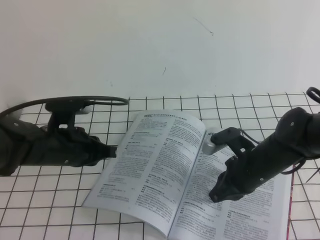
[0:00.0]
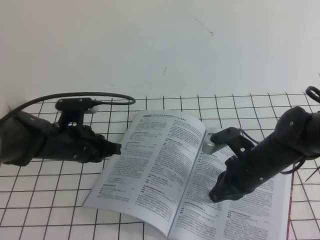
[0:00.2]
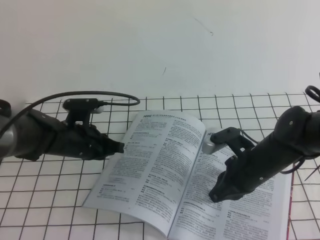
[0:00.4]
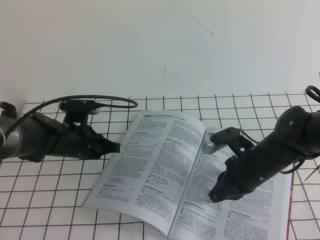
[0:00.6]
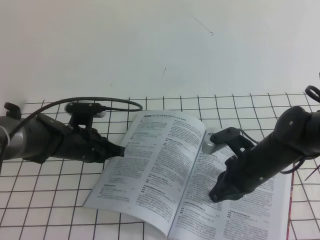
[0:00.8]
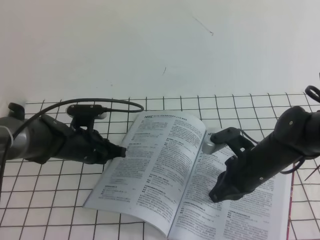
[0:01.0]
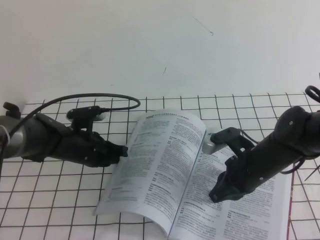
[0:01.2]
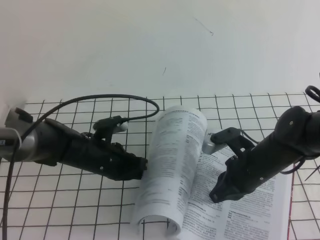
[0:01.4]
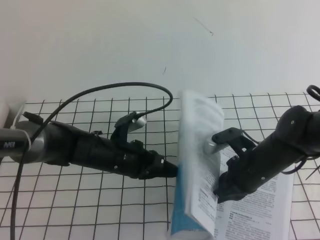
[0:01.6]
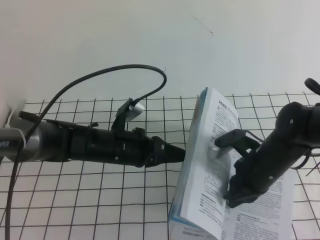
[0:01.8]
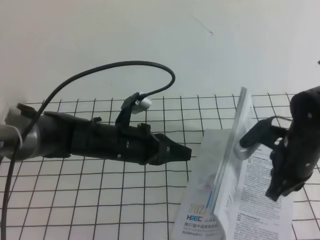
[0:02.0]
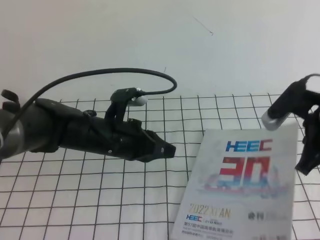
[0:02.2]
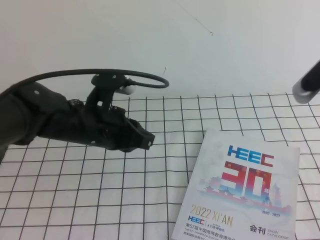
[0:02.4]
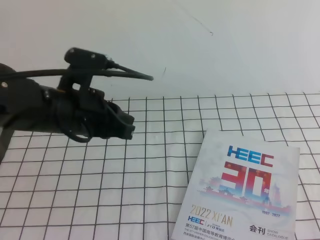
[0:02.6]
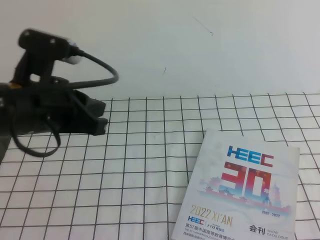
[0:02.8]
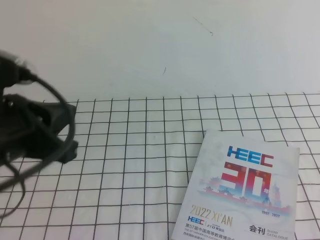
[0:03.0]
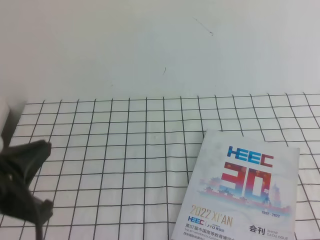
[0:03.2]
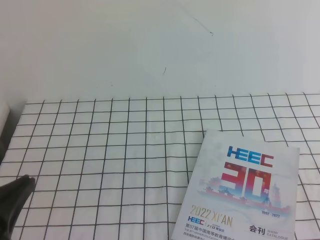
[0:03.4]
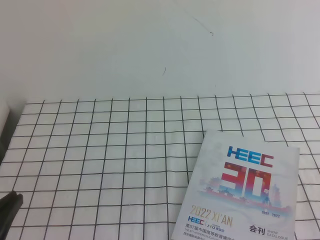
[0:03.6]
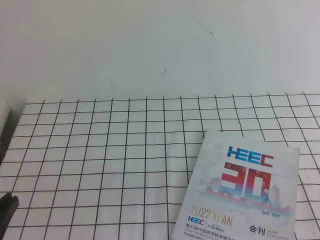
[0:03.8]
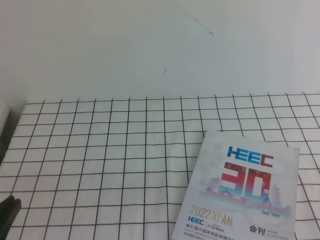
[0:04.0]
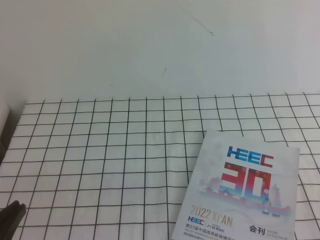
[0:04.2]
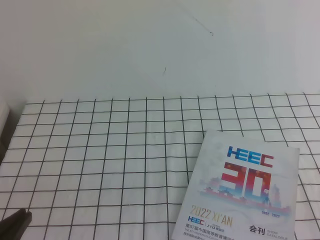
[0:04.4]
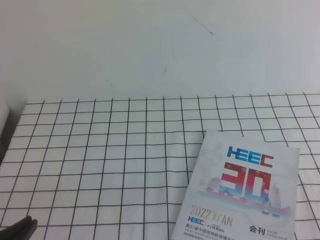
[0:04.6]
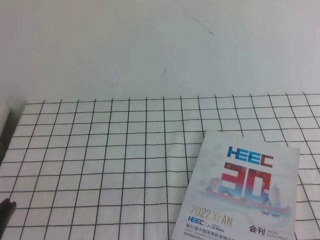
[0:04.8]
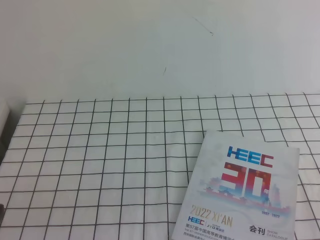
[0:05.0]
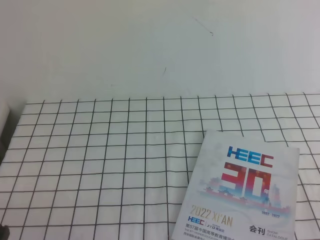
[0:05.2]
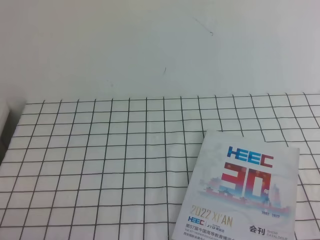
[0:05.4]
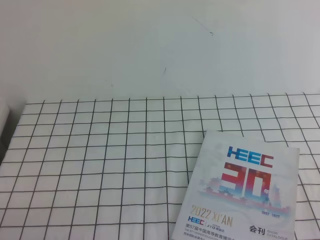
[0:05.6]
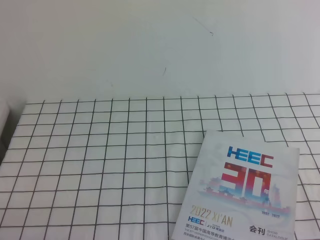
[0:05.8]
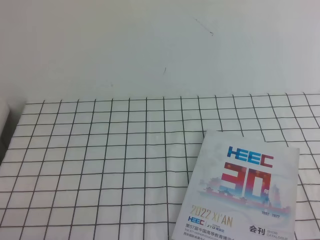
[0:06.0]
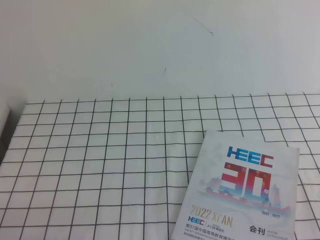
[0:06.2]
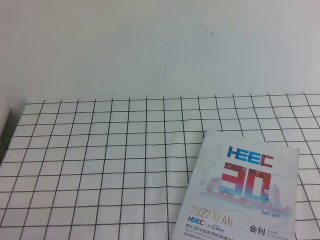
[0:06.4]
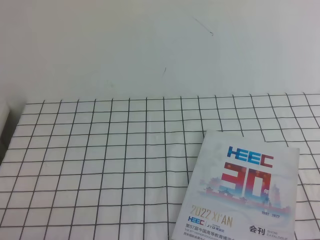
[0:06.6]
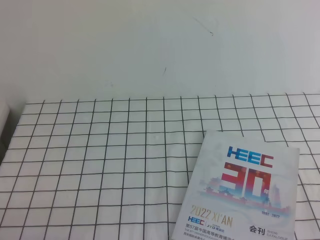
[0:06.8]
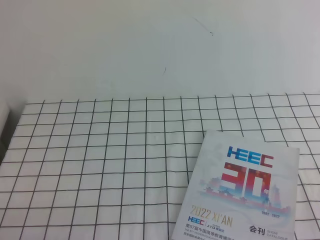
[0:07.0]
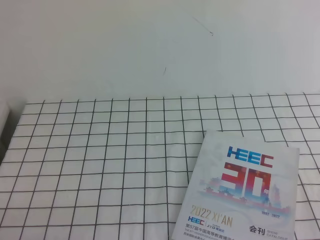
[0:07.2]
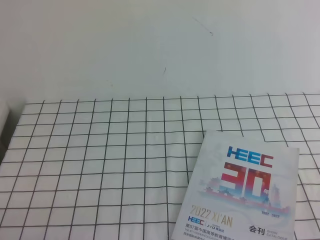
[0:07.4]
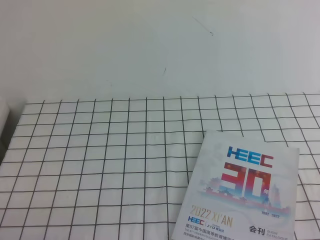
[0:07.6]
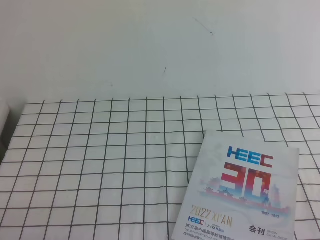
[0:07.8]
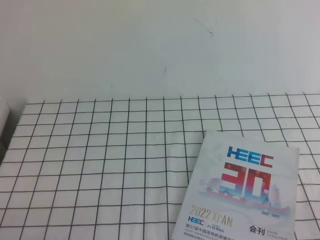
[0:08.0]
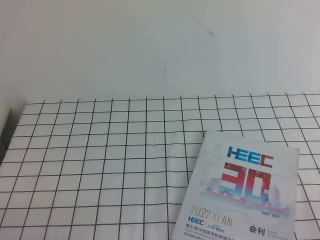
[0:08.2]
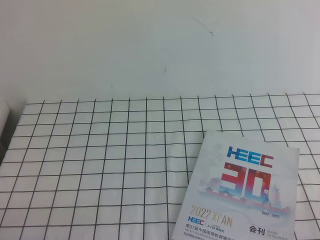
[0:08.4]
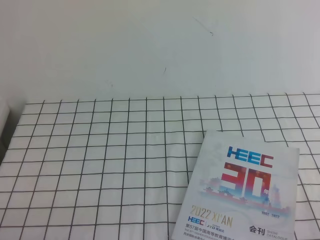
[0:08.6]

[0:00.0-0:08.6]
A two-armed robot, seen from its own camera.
Task of the whole recording: on the white tablecloth, hold the book with one hand and close it with the other.
Step, 0:00.0 to 0:08.6: Close the open book.
0:00.0 to 0:01.4: The left gripper moves downward, roughly 5 cm.
0:01.4 to 0:02.8: The left gripper is displaced upward and backward by approximately 25 cm. Meanwhile the right gripper shifts some 35 cm upward, backward and to the right.
0:02.8 to 0:04.4: The two grippers go some 20 cm backward and downward.
0:04.4 to 0:05.8: The left gripper goes roughly 10 cm downward.

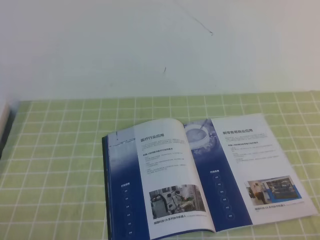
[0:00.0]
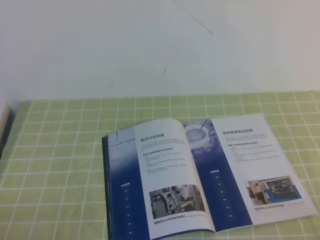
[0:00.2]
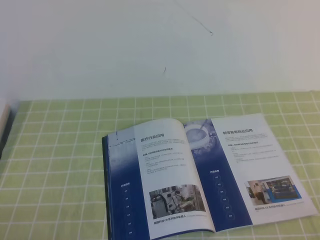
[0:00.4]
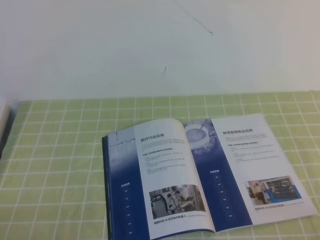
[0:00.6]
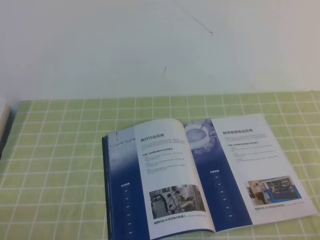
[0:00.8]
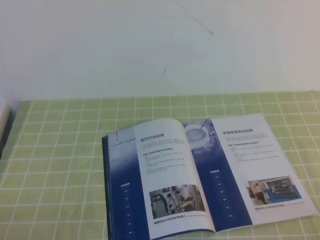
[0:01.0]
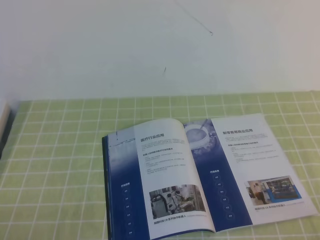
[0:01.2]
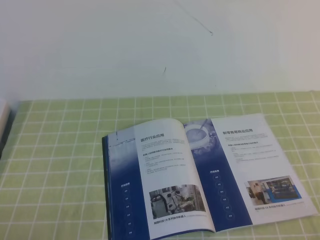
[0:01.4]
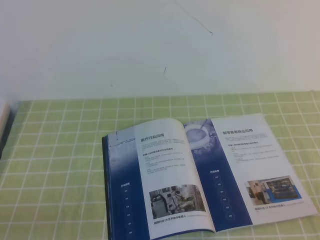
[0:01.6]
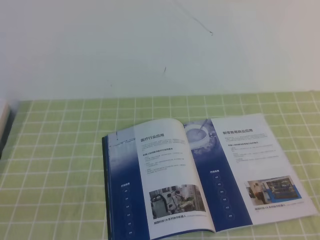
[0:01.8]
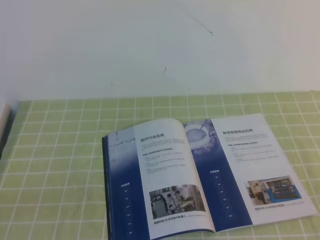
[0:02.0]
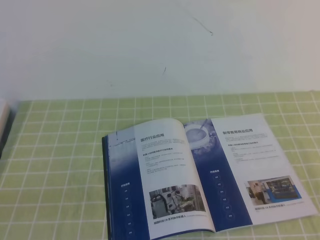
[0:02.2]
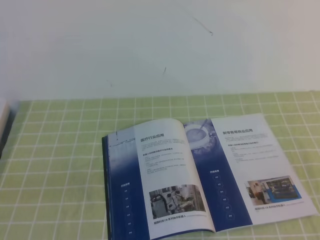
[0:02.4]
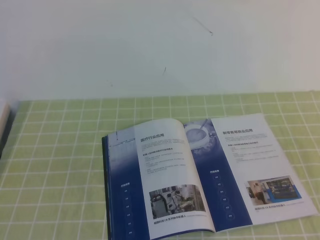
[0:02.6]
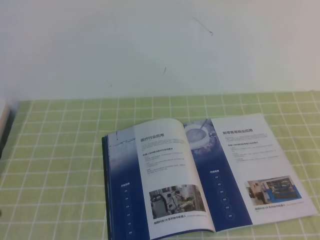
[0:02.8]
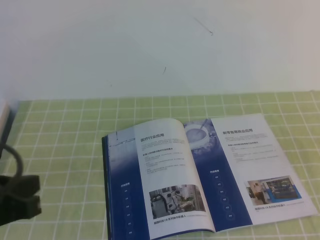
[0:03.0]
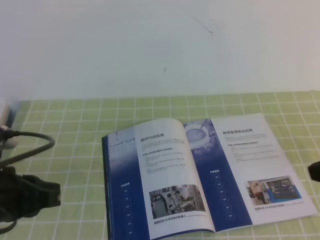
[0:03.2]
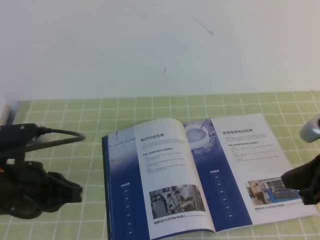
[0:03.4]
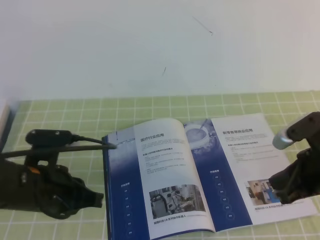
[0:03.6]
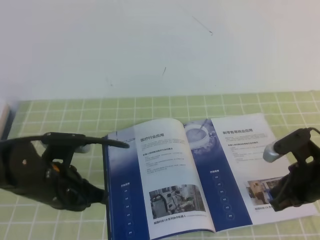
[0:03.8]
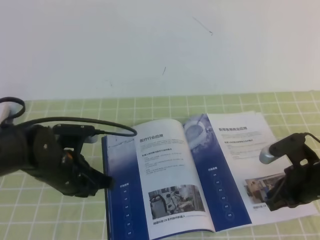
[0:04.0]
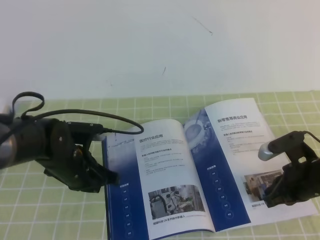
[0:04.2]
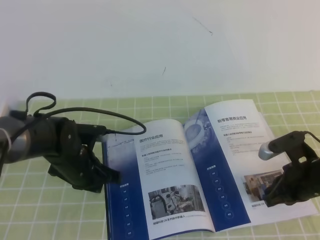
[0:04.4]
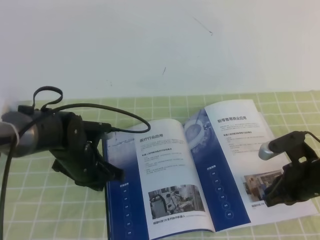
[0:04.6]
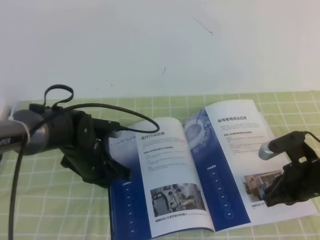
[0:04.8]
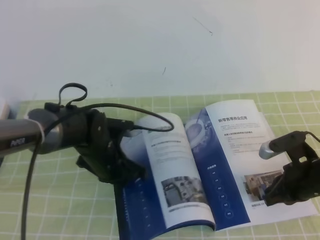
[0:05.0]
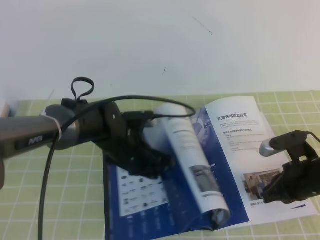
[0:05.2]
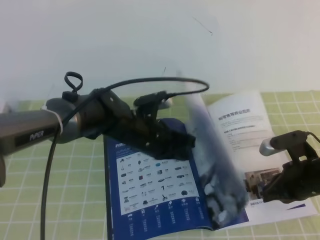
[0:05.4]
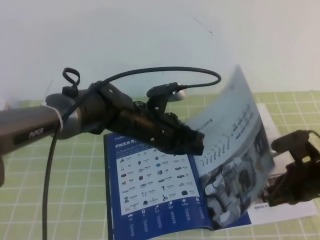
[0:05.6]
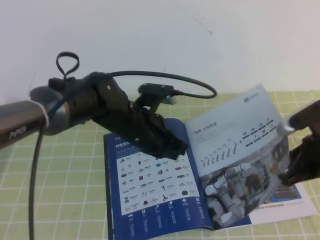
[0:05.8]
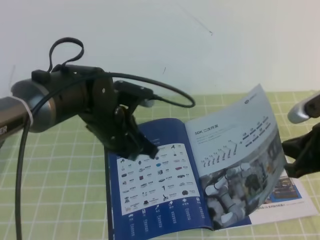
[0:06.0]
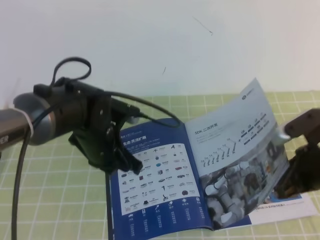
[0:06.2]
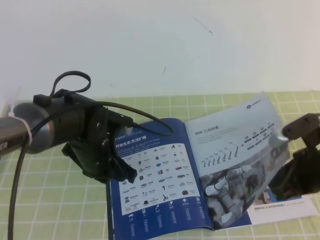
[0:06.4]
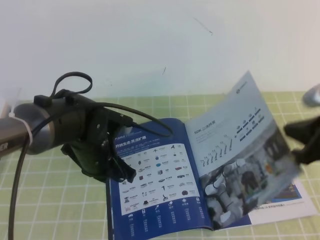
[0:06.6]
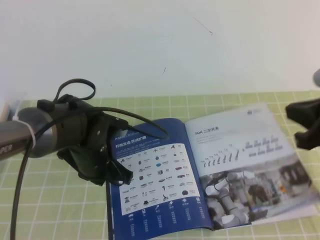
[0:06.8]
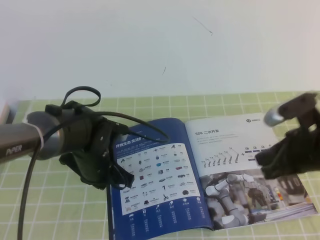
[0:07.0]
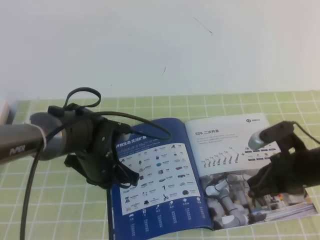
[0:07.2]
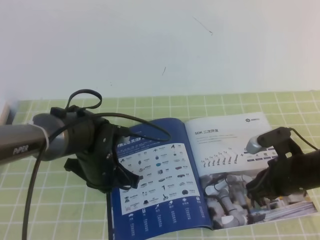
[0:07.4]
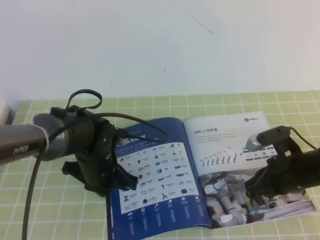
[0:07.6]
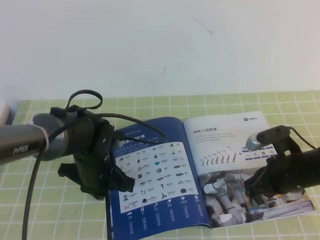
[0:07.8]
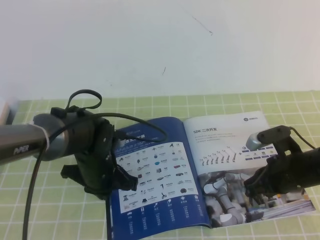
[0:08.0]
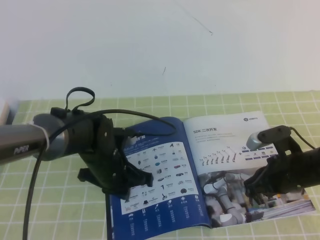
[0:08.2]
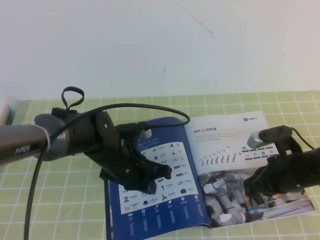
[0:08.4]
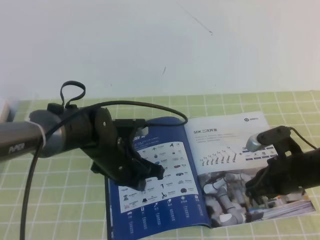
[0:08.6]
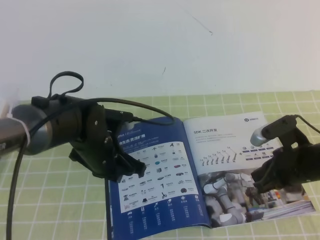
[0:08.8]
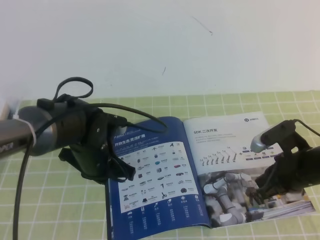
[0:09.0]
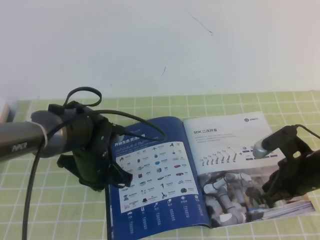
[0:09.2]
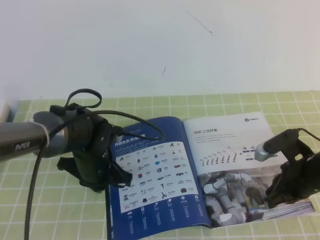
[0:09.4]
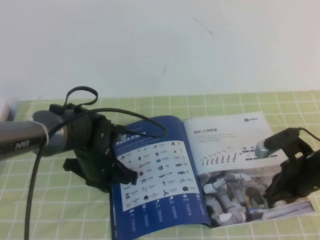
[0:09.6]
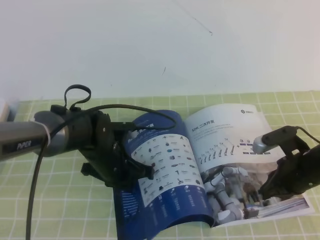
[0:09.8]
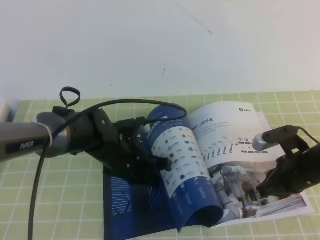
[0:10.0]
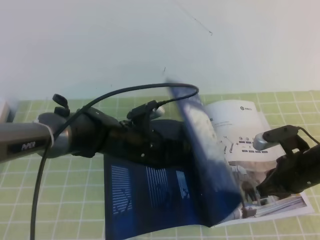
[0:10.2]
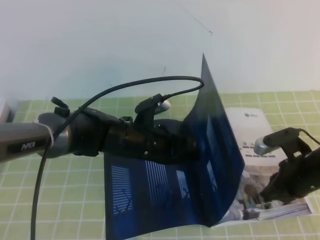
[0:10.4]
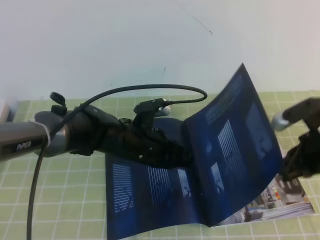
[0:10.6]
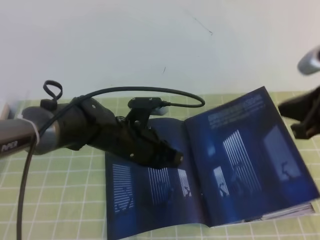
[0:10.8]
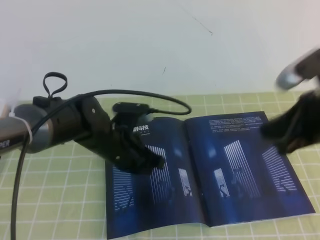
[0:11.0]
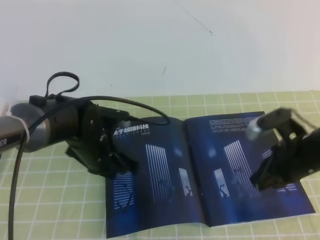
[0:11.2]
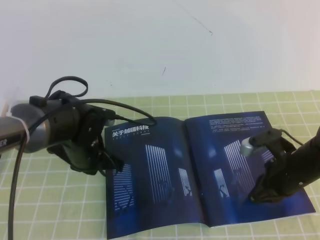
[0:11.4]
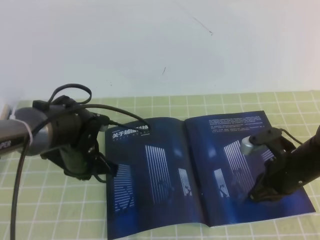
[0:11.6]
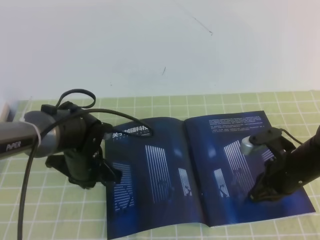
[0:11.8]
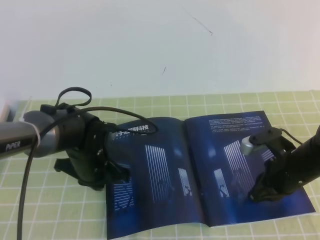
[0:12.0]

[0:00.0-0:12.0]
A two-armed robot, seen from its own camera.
Task of the whole recording: on the green tablecloth, hold the book with one hand and close it with the other.
0:01.6 to 0:03.0: The left gripper goes approximately 15 cm upward and forward.
0:03.0 to 0:04.4: The left gripper goes approximately 25 cm forward, downward and to the right. The right gripper heads downward and forward, covering about 25 cm.
0:04.4 to 0:06.0: The right gripper travels upward by roughly 10 cm. The left gripper shifts some 10 cm to the right and upward.
0:06.0 to 0:07.6: Both grippers move downward, some 10 cm.
0:07.6 to 0:09.0: The grippers make only small movements.
0:09.0 to 0:10.4: The left gripper travels to the right by about 5 cm.
0:10.4 to 0:12.0: The right gripper travels upward and back again, roughly 15 cm each way. The left gripper is displaced to the left by roughly 10 cm.

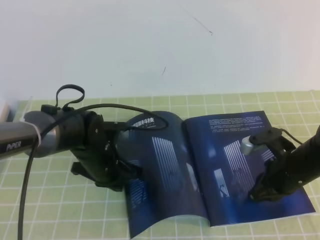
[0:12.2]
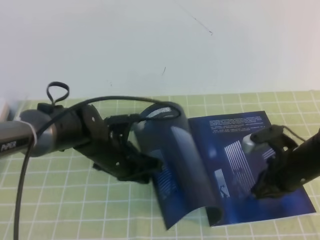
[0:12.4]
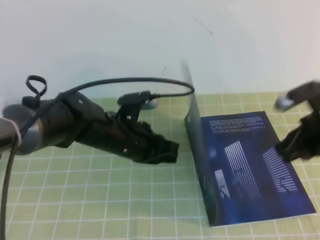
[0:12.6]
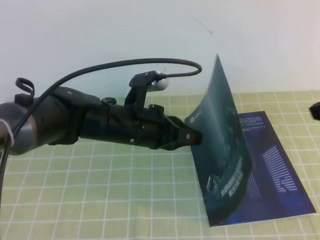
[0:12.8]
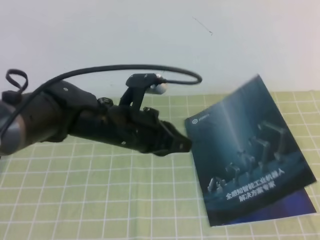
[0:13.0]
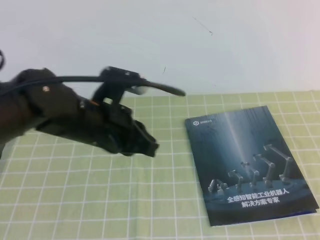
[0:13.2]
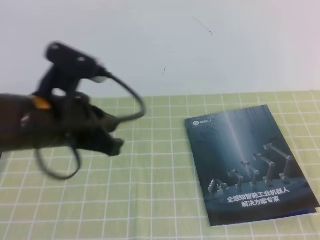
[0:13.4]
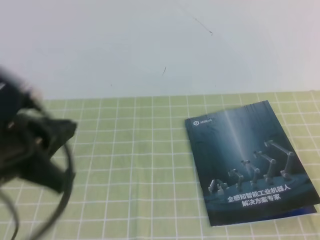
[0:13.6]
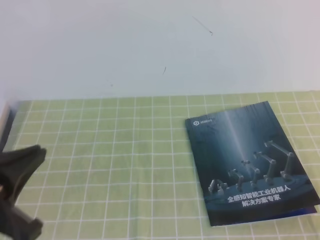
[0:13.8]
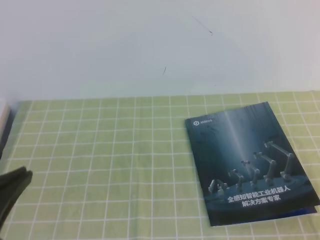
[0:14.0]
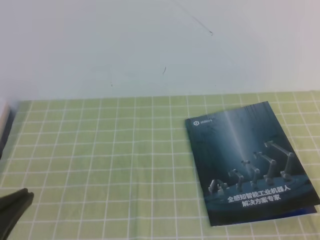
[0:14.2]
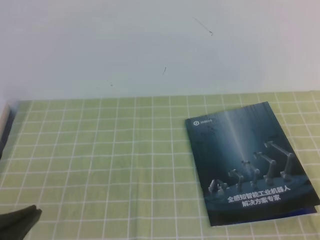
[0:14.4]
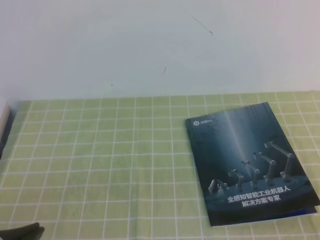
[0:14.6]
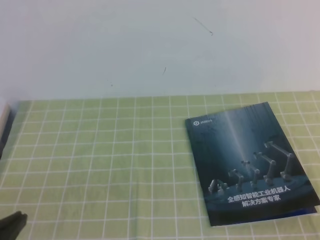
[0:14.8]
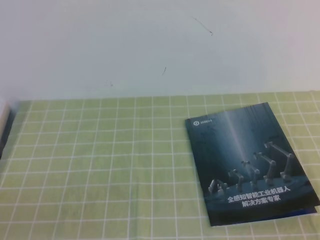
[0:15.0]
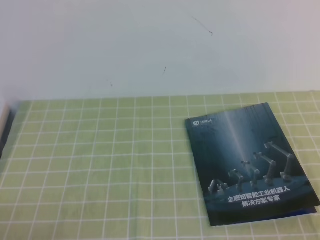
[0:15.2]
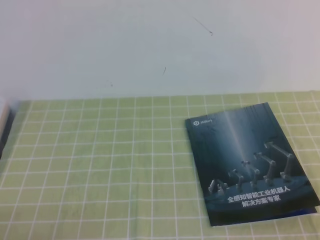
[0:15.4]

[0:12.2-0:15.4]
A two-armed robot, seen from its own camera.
Task of the whole recording: on the green tablecloth, hold the book with one hand and close it with the other.
0:12.2 to 0:13.8: The right gripper is displaced backward and upward by about 30 cm; the left gripper shifts roughly 30 cm backward, upward and to the left.
0:13.8 to 0:15.4: The left gripper is displaced downward and backward by approximately 15 cm.
